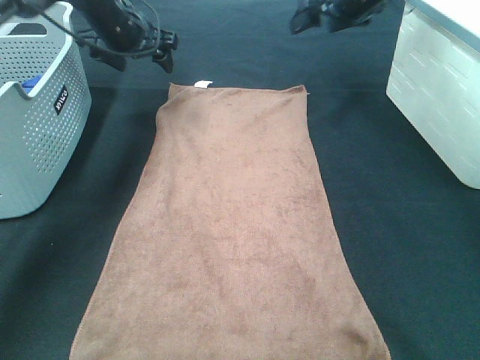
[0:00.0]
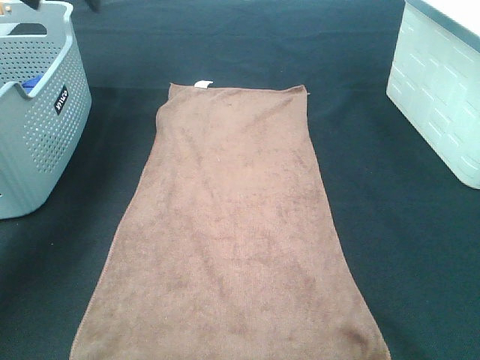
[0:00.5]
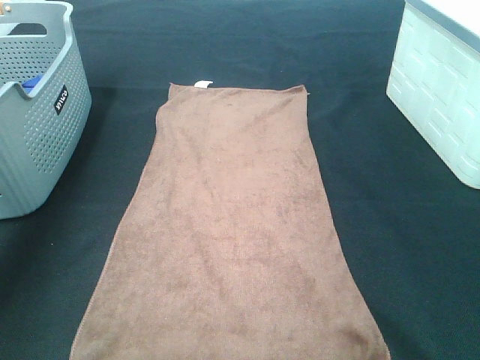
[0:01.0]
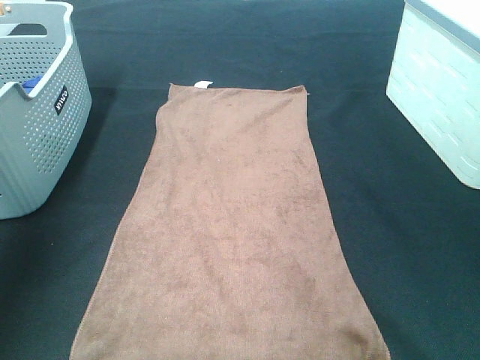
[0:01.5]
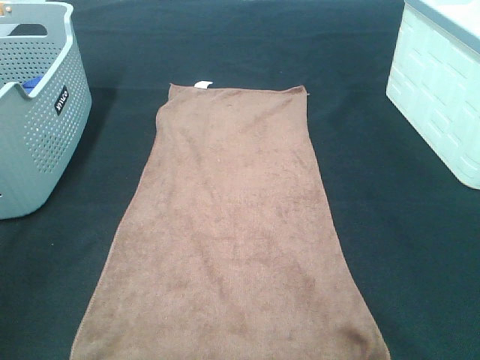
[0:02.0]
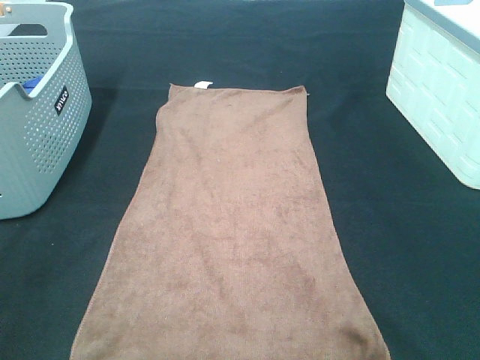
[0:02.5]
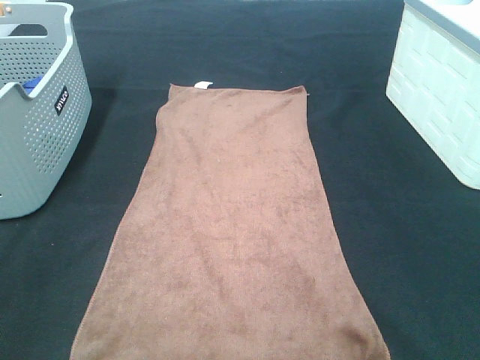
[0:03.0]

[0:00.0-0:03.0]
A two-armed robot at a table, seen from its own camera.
Task of the whole recording: Remove the towel and place it.
0:00.0 to 0:01.5: The left gripper goes approximately 35 cm backward, to the left and upward. The right gripper moves backward, some 35 cm.
0:01.5 to 0:03.0: The left gripper heads backward, covering roughly 25 cm.

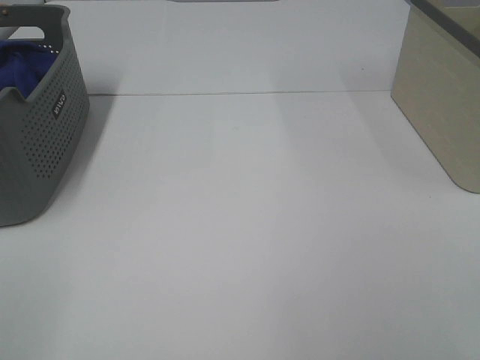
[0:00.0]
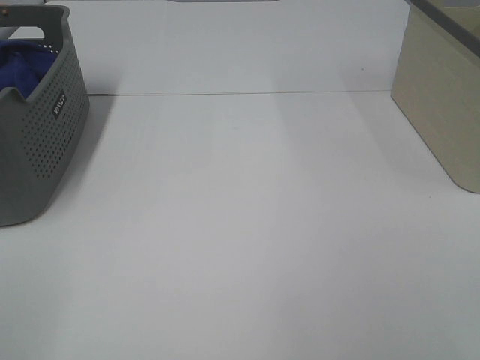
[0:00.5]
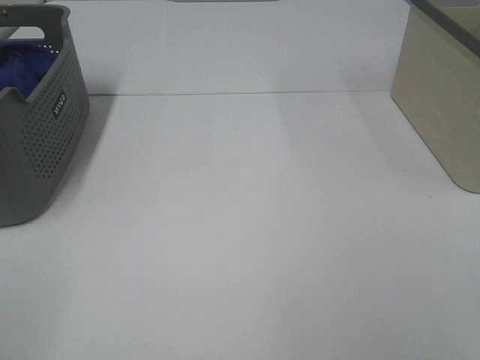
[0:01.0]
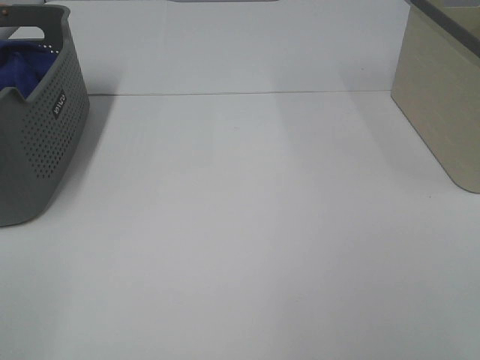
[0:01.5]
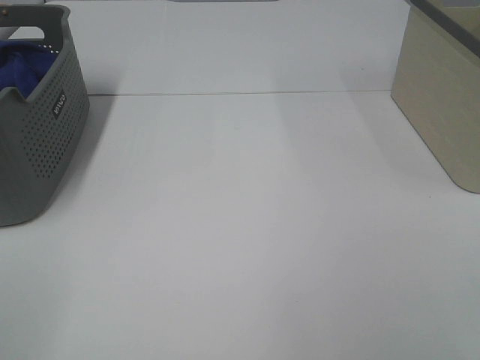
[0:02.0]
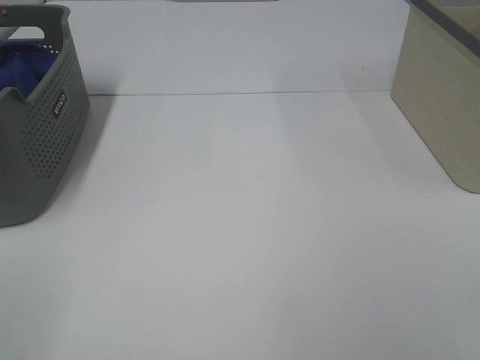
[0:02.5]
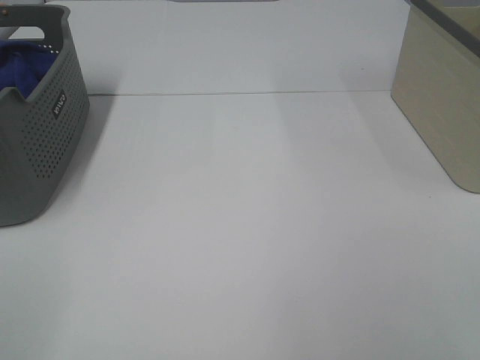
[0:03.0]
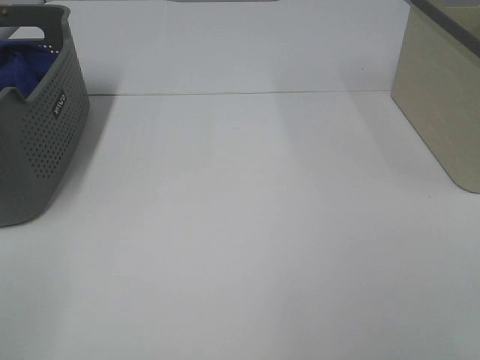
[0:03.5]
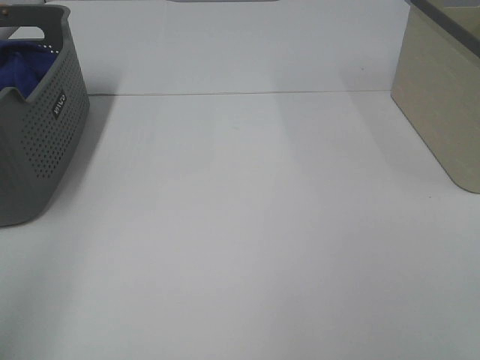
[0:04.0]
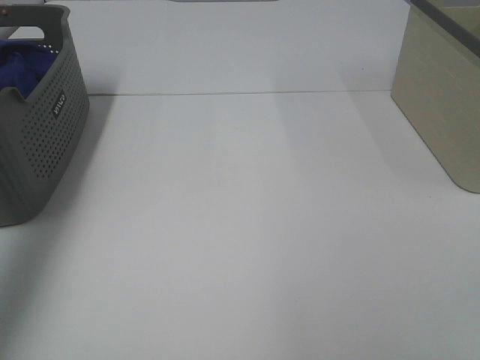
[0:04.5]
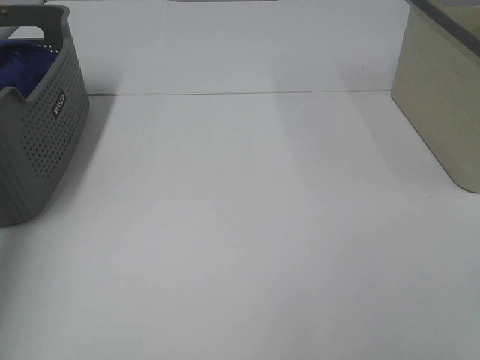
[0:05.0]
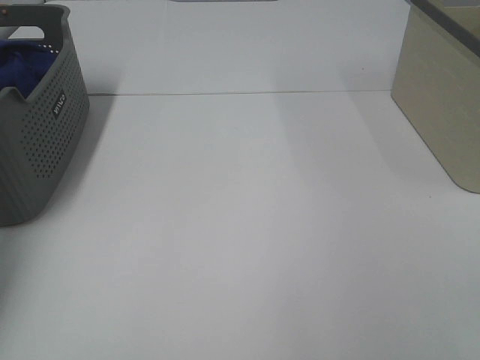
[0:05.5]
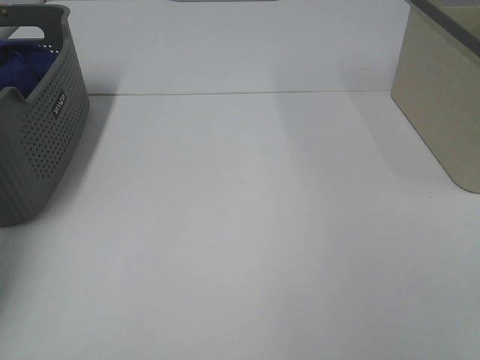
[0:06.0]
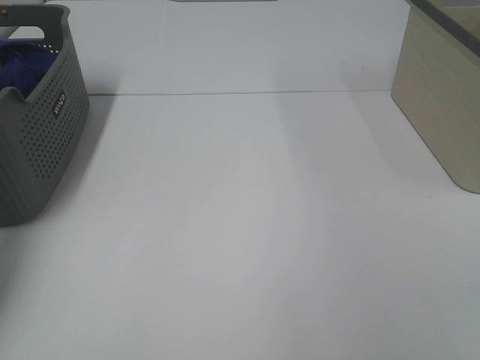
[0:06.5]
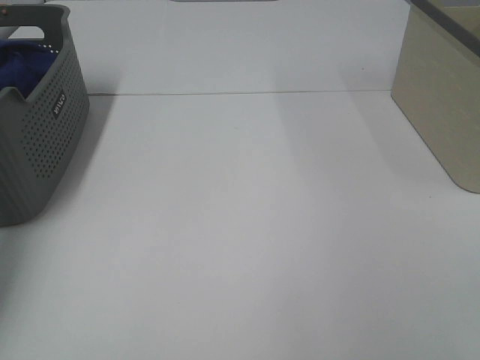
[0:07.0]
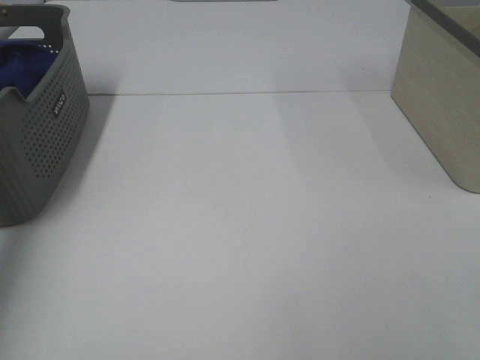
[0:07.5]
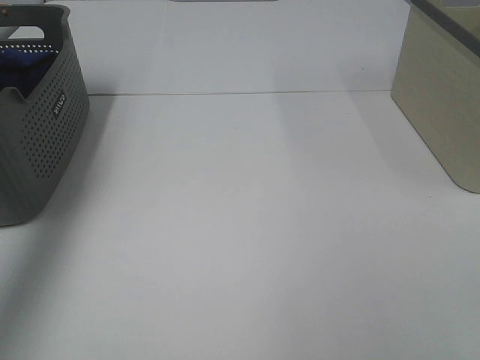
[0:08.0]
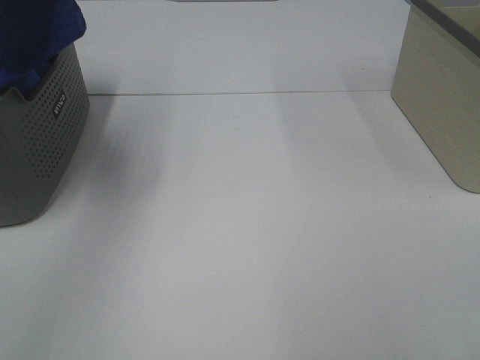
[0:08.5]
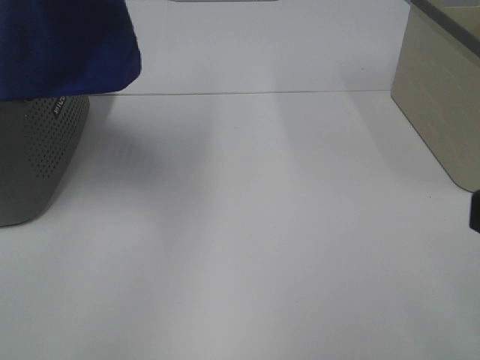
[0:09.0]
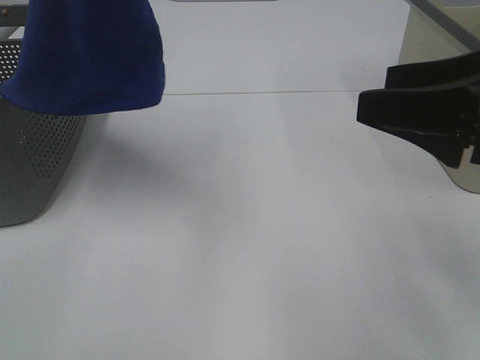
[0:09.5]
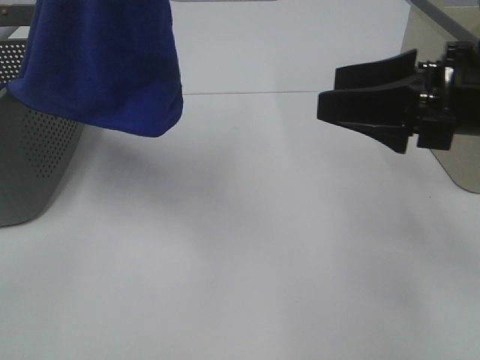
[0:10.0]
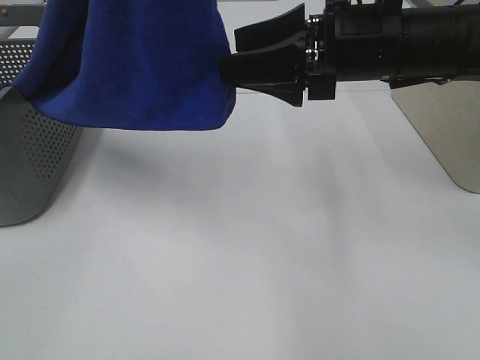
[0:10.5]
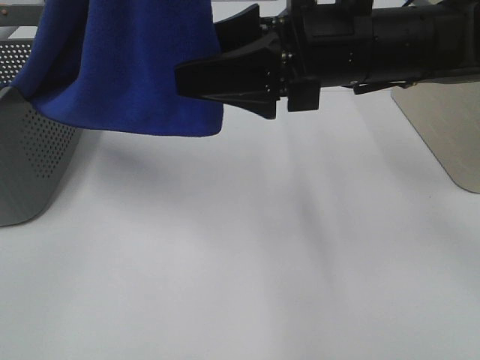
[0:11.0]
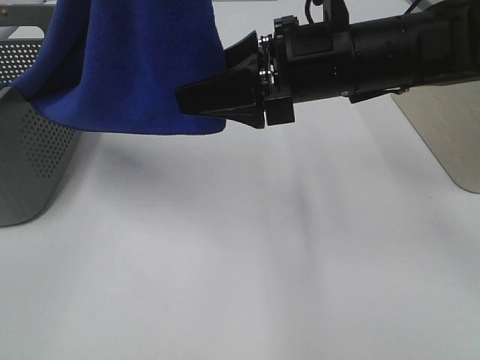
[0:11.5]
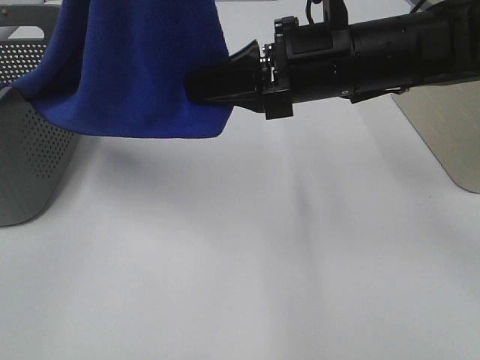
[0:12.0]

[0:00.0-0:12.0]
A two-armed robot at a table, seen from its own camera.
Task of the whole recording: Remove the towel and place it.
0:00.0 to 0:02.0: Both grippers stay put.
0:04.0 to 0:06.0: The left gripper heads forward and downward, covering about 40 cm.
0:06.0 to 0:08.0: The left gripper travels upward and backward by roughly 30 cm, and closes its fingers.
0:08.0 to 0:10.0: The left gripper heads to the right and backward, covering roughly 25 cm, while the right gripper is displaced forward by roughly 25 cm.
0:10.0 to 0:12.0: The right gripper shifts about 15 cm to the left and forward, and closes up.

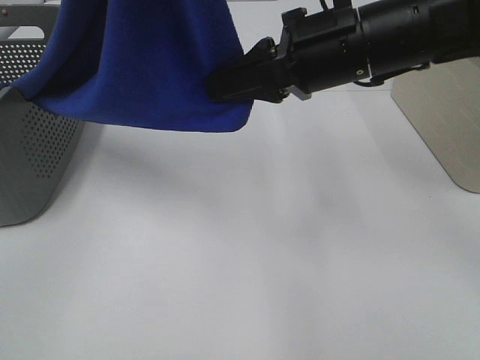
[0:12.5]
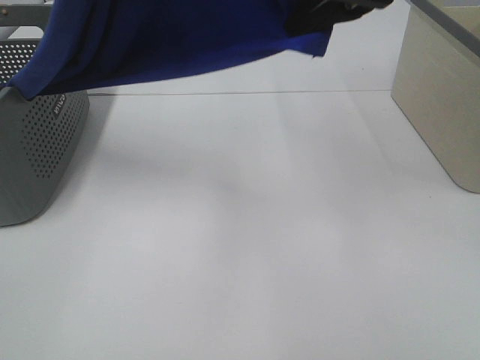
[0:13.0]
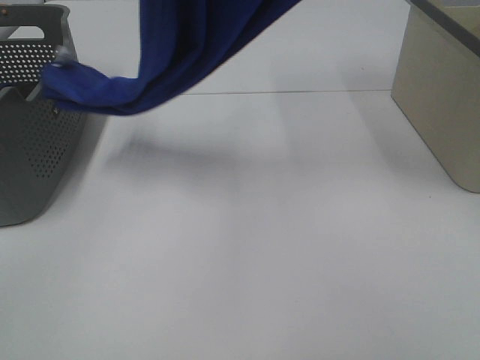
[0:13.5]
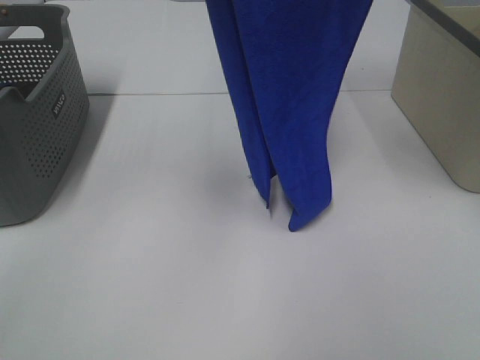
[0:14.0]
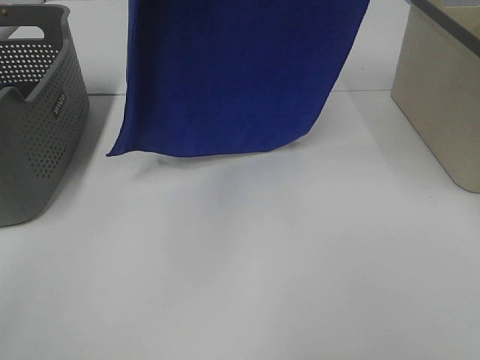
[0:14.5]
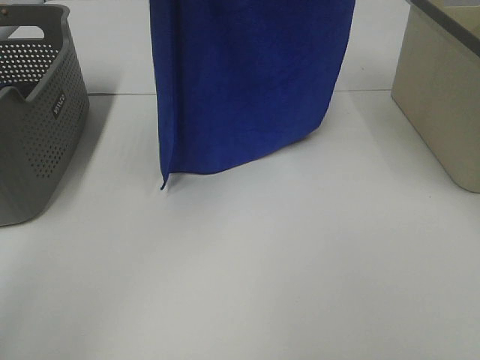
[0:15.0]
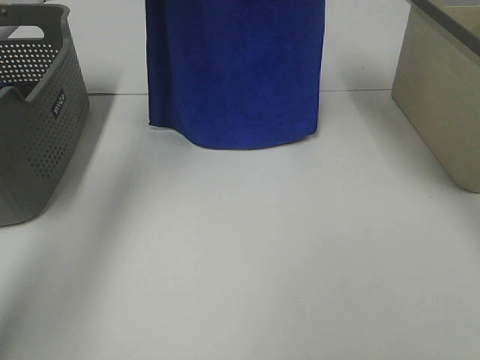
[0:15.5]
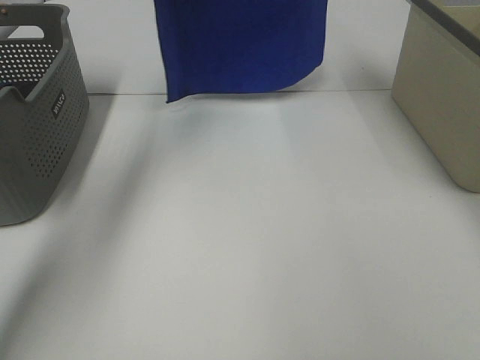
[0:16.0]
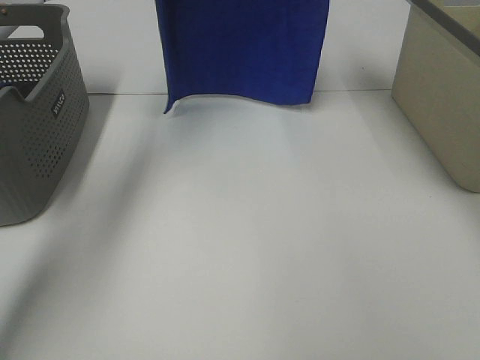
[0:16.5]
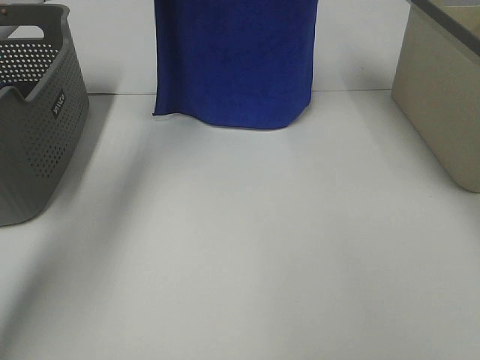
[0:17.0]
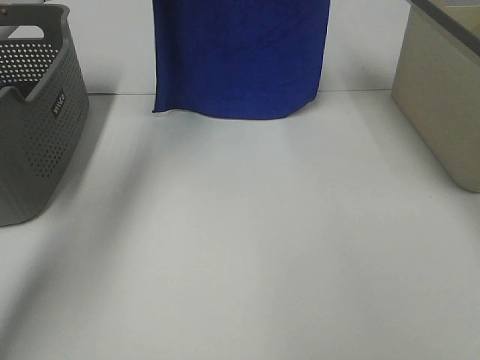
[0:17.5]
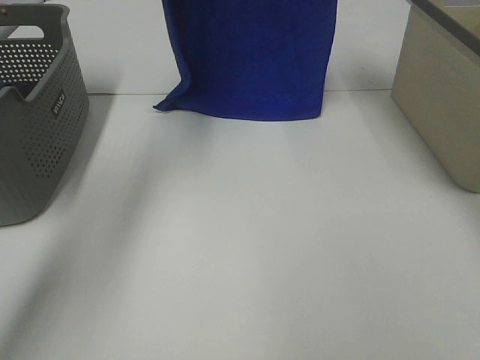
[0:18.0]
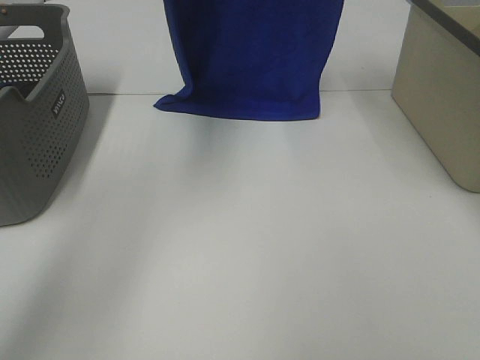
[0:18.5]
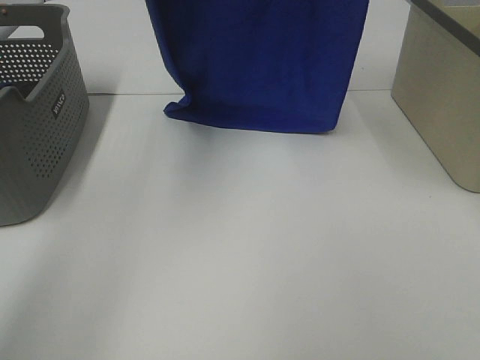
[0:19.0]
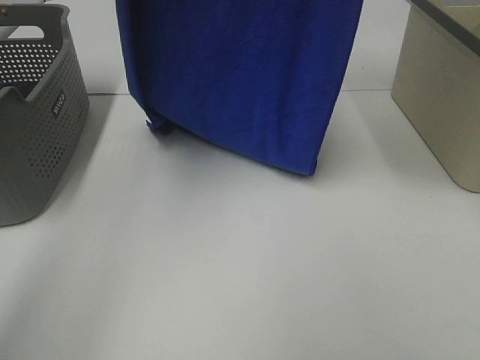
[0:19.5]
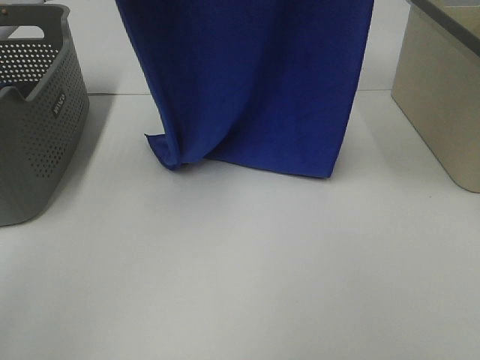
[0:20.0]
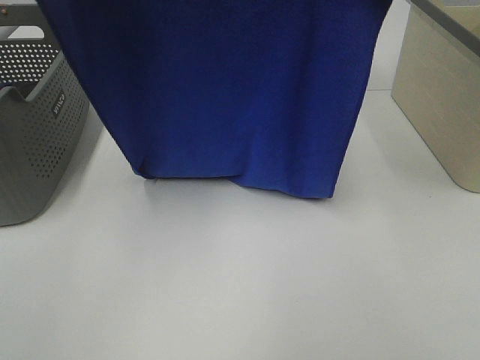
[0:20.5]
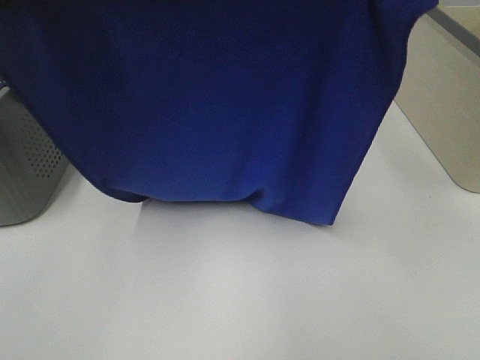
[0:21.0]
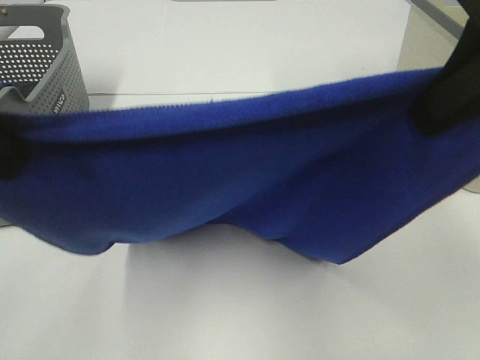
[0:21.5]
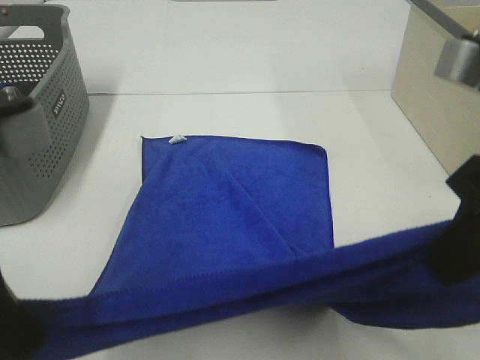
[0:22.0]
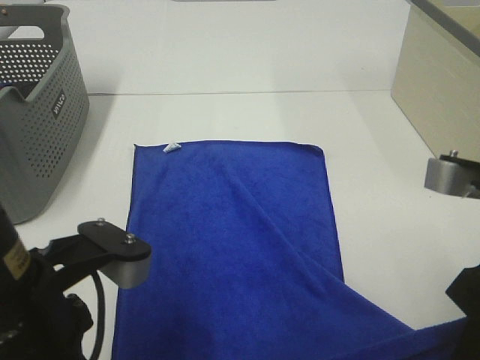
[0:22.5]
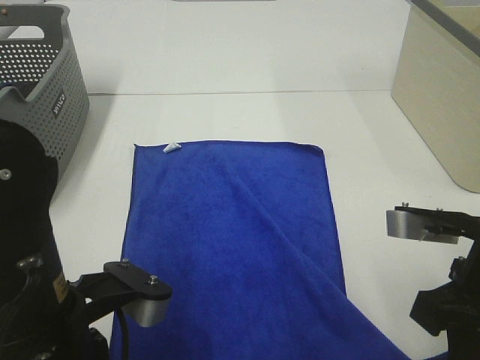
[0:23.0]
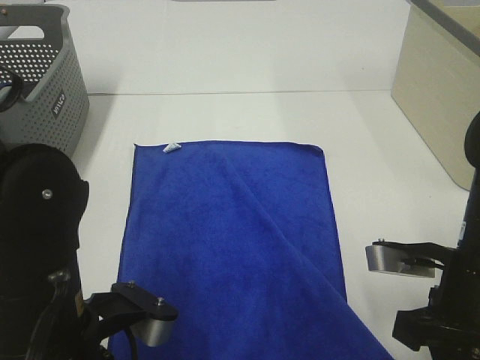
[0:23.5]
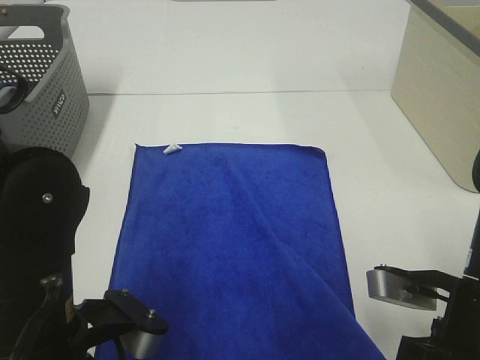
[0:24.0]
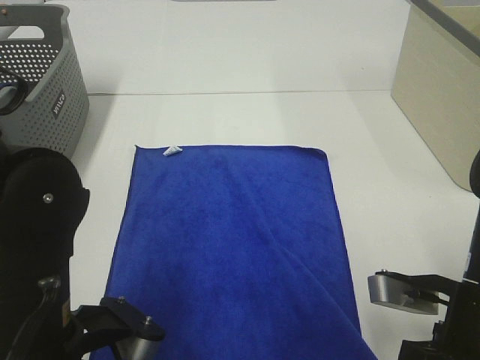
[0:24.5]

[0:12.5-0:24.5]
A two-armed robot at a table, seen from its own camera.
Task of the whole recording: Remove the towel and place it.
Step, 0:13.0 to 0:20.0: Left hand: spread the blue towel flat on the table.
Step, 0:13.0 to 0:20.0: Right hand: spread the blue towel flat on the table.
0:12.5 to 0:14.5: The left gripper travels forward by about 10 cm. The right gripper shifts about 25 cm upward.
0:14.5 to 0:16.5: The two grippers go roughly 15 cm forward.
0:16.5 to 0:18.5: The left gripper goes approximately 5 cm backward.
0:18.5 to 0:20.5: The two grippers go approximately 15 cm backward.
0:20.5 to 0:22.5: The grippers both shift downward and backward by about 30 cm.
0:22.5 to 0:24.5: The right gripper heads downward, covering about 10 cm.
